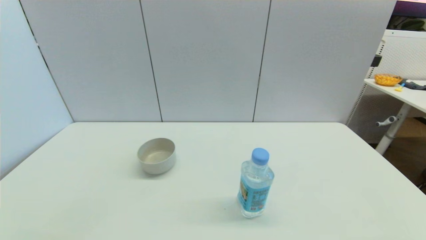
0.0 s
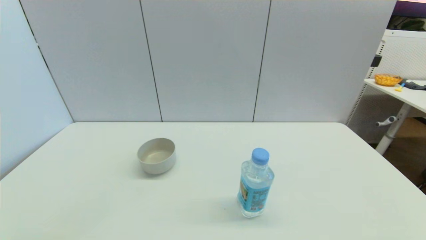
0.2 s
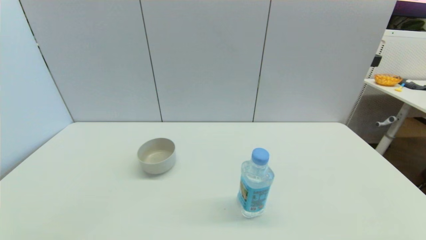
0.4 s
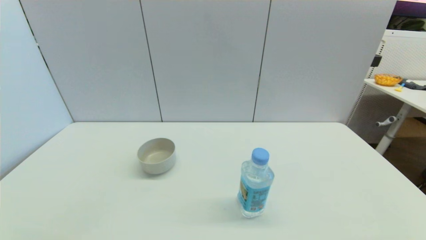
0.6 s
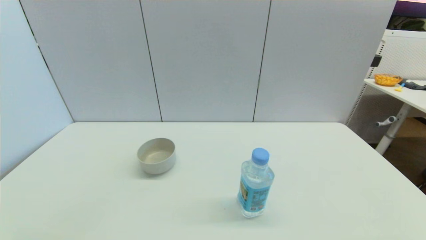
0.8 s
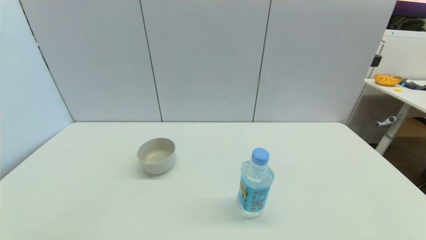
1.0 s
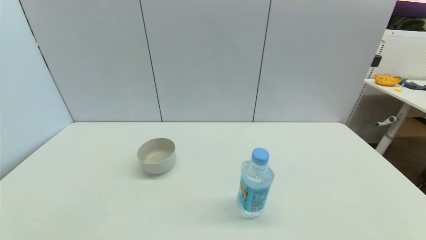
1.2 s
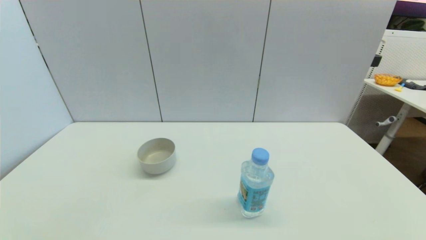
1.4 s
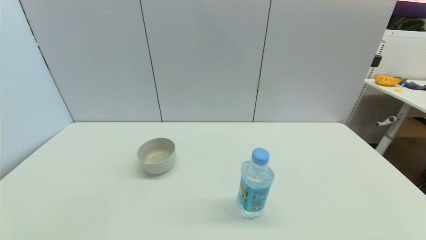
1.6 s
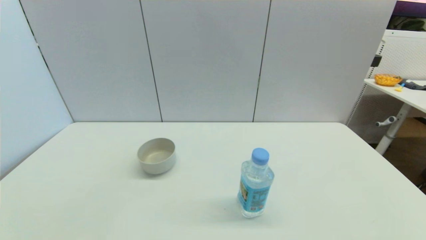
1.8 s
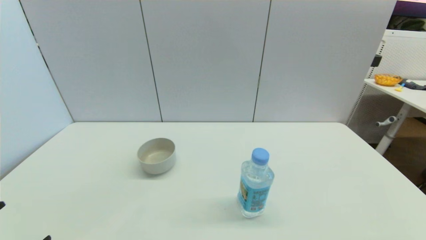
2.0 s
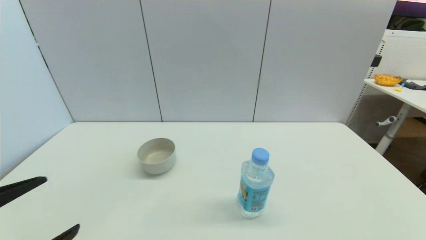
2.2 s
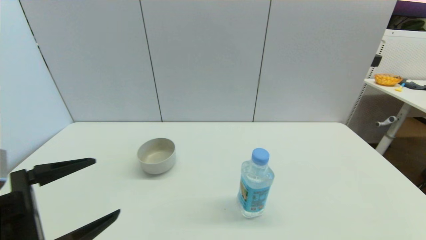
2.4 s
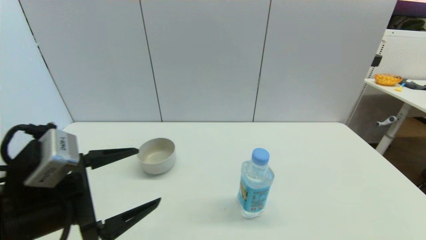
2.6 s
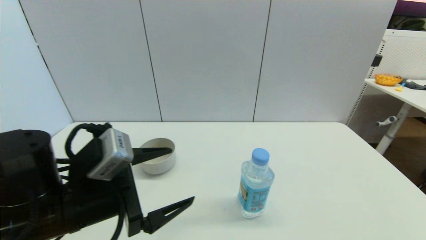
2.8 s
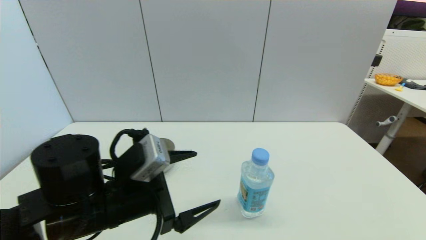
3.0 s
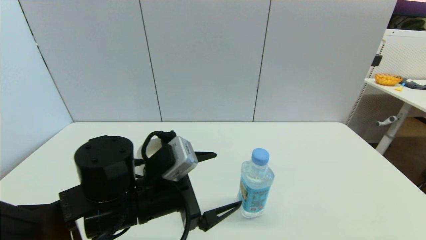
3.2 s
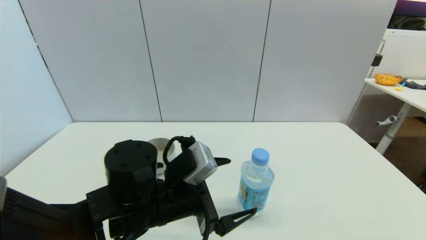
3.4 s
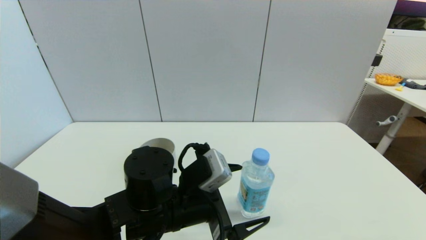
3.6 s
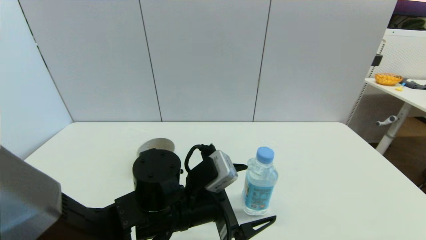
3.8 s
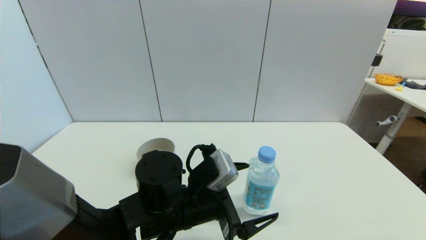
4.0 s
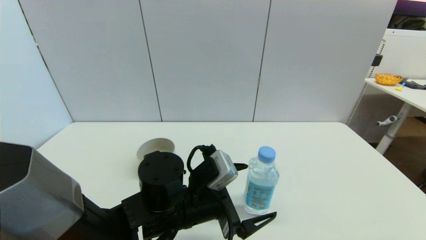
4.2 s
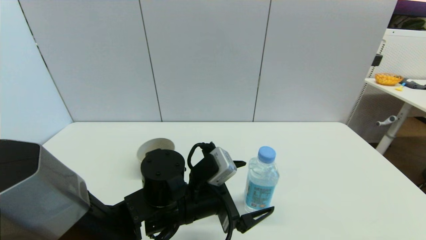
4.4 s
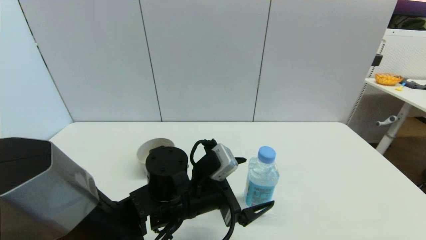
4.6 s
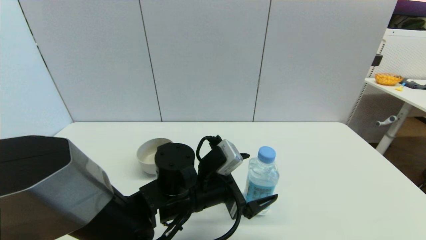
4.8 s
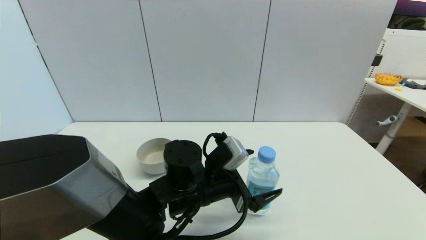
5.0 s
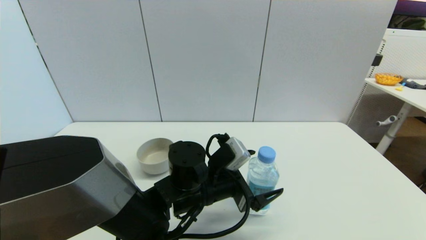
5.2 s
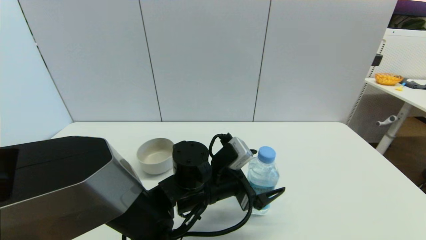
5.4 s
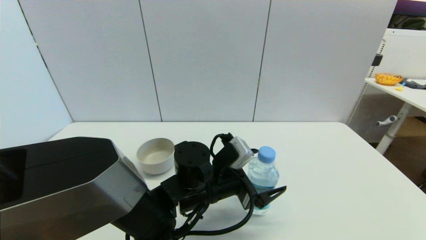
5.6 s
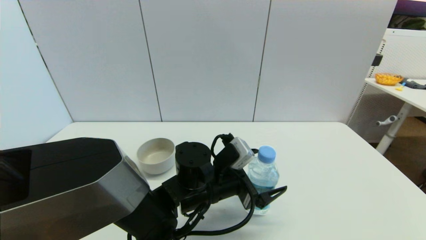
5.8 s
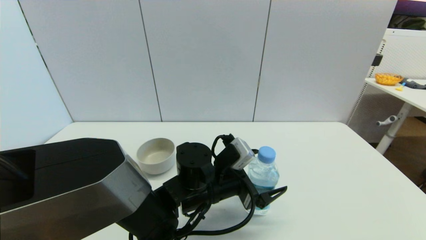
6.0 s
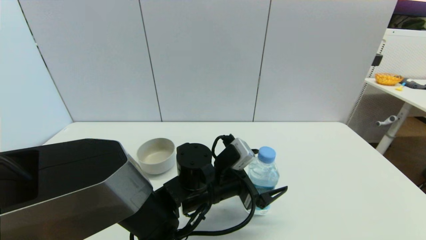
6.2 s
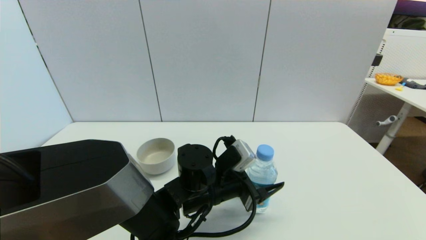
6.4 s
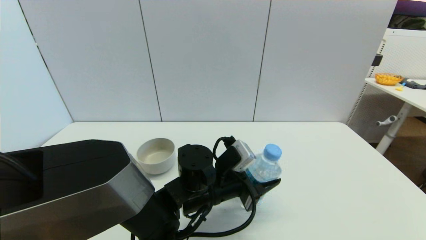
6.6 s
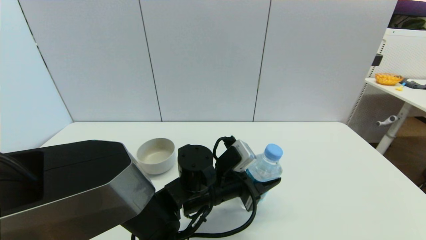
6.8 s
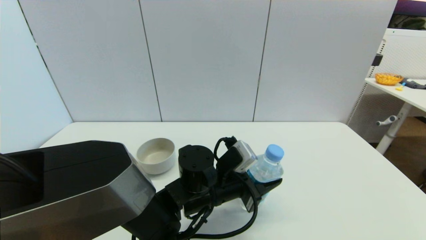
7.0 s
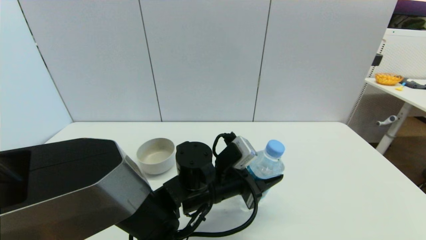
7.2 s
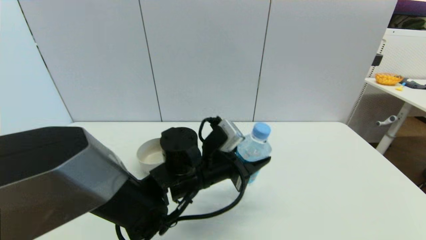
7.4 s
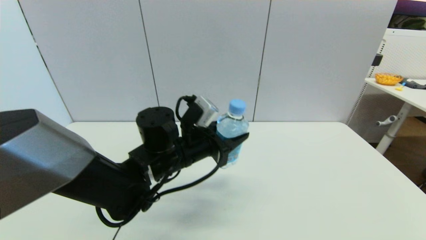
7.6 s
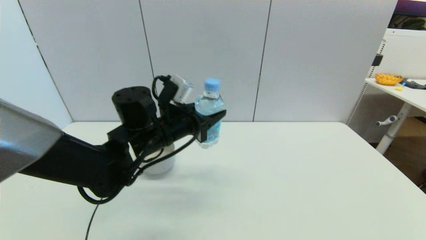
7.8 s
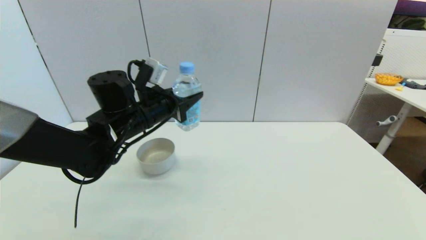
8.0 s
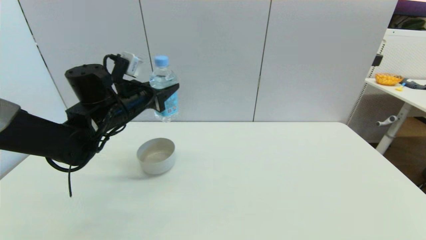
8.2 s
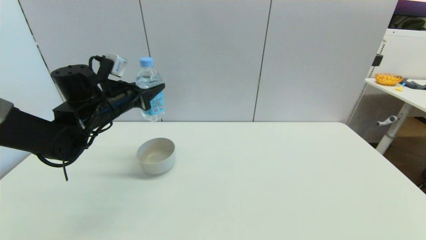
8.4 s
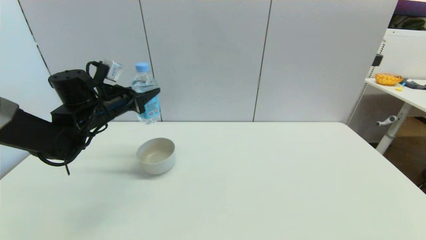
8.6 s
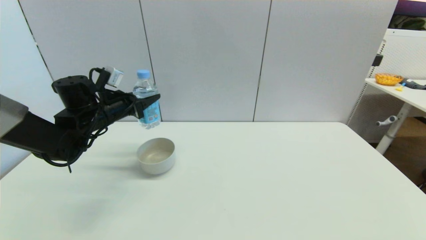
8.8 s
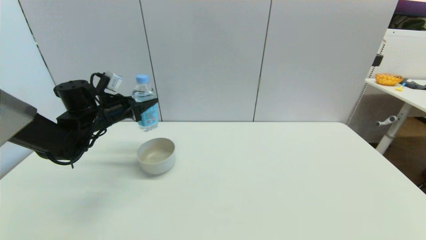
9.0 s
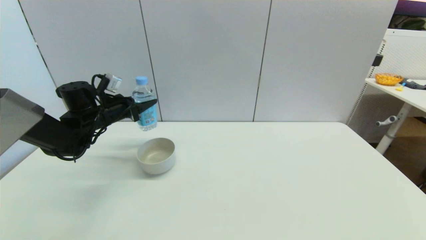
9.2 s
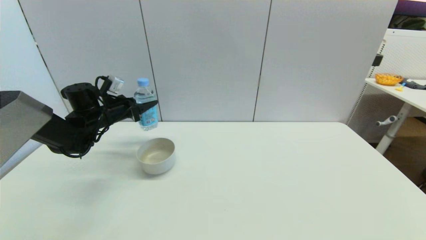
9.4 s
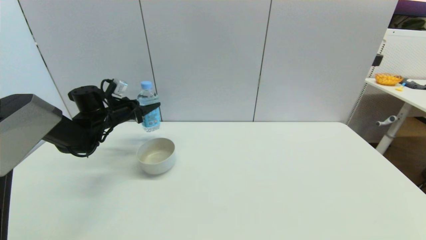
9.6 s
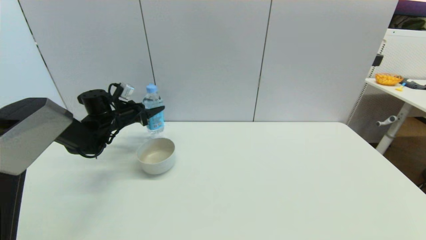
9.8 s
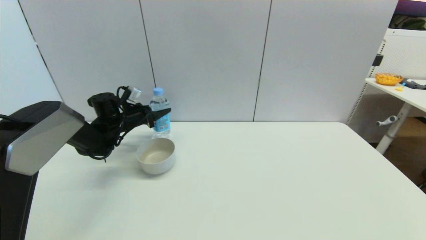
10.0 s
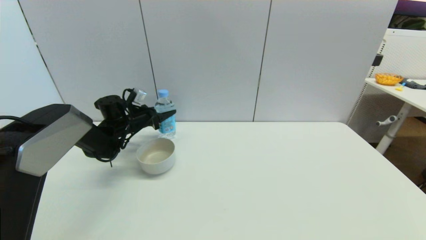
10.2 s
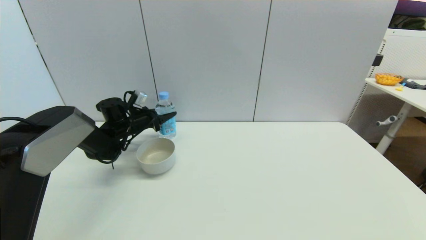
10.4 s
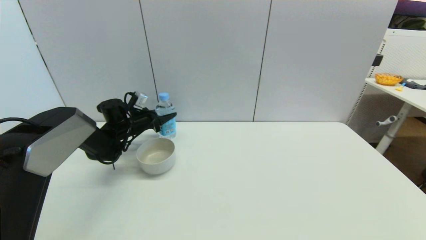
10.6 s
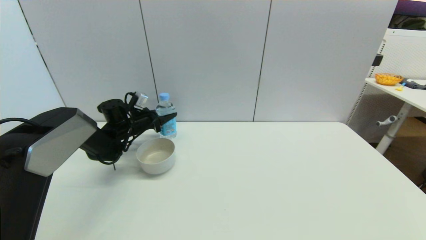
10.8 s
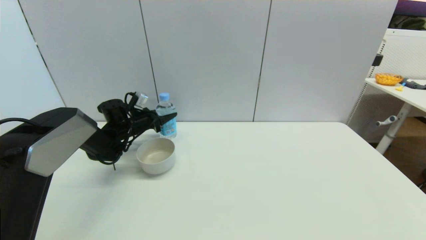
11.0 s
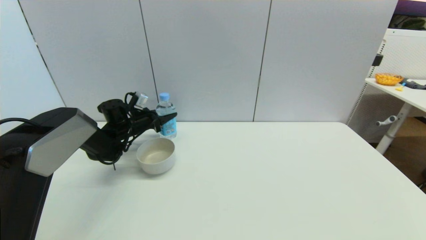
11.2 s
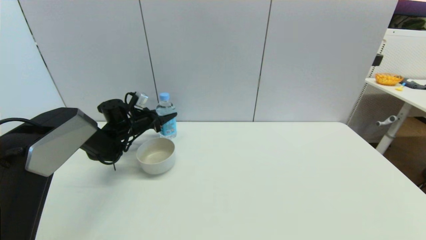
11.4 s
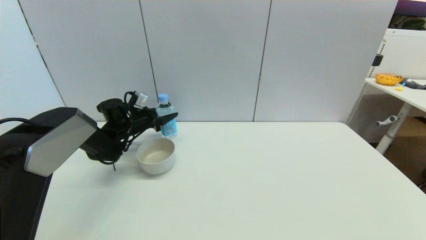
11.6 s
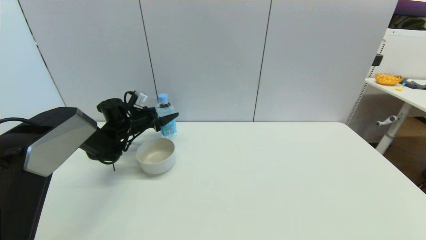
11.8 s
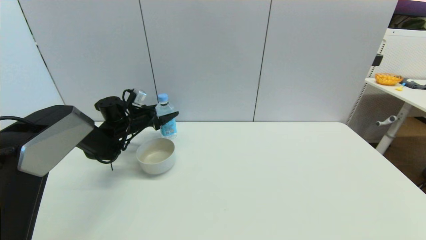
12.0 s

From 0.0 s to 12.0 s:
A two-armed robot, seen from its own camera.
Step, from 1.4 s to 6.8 s: Grasp the soda water with left gripper.
Step, from 7.2 s to 11.2 s: Place the soda water on the table with left gripper.
From 1.6 s to 3.0 s: The left gripper heads forward and to the right, covering some 25 cm.
From 3.0 s to 4.4 s: The left gripper moves to the right, about 10 cm.
From 4.4 s to 6.0 s: The left gripper moves approximately 5 cm.
From 6.0 s to 7.6 s: The left gripper travels upward and to the left by roughly 10 cm, and closes its fingers.
From 7.6 s to 9.0 s: The left gripper moves to the left and forward, about 25 cm.
From 9.0 s to 10.4 s: The left gripper heads downward and forward, covering some 10 cm.
From 10.4 s to 12.0 s: The left gripper opens.

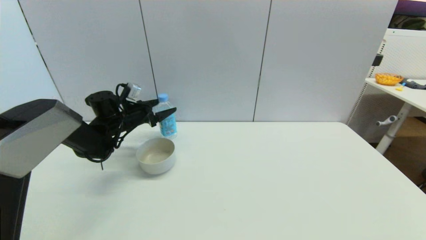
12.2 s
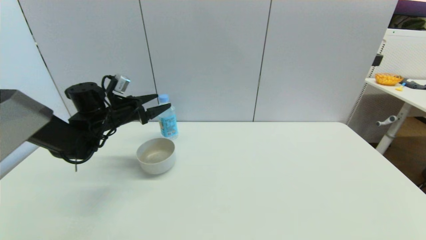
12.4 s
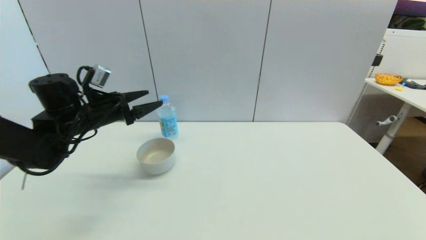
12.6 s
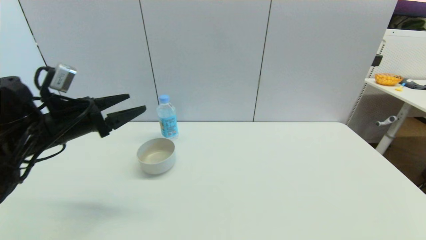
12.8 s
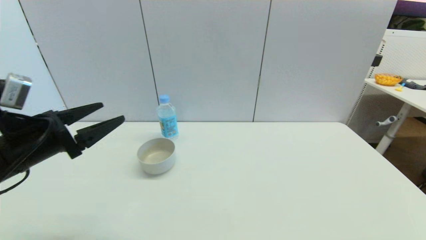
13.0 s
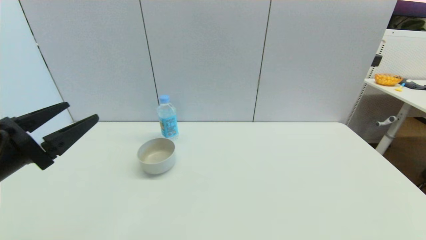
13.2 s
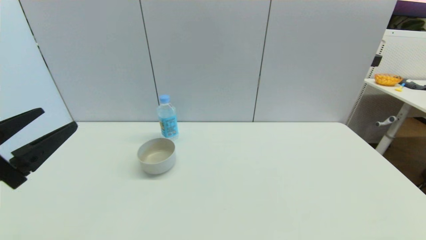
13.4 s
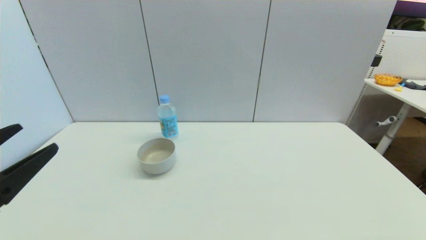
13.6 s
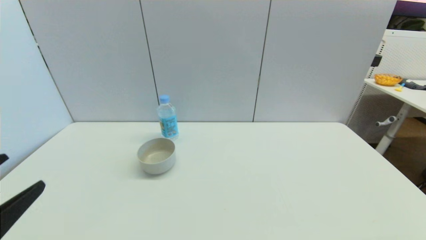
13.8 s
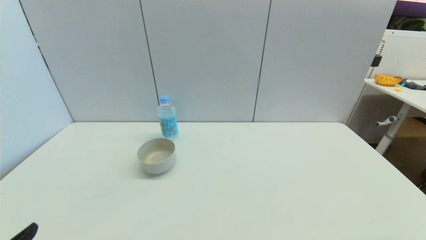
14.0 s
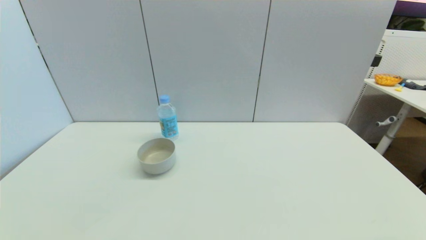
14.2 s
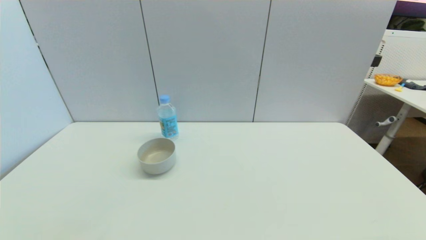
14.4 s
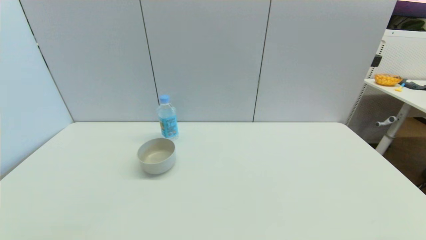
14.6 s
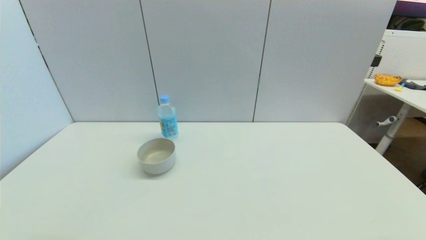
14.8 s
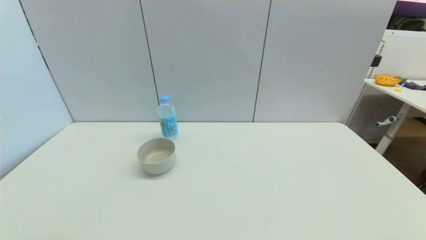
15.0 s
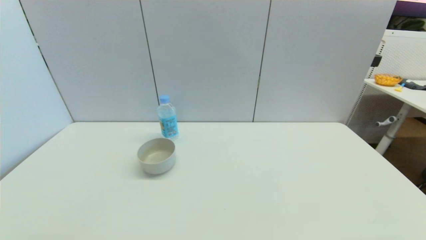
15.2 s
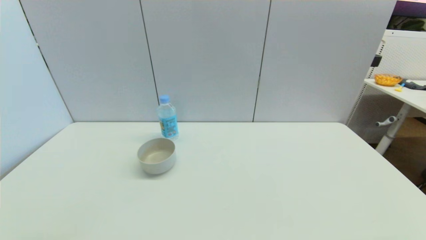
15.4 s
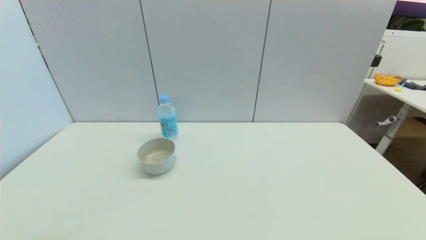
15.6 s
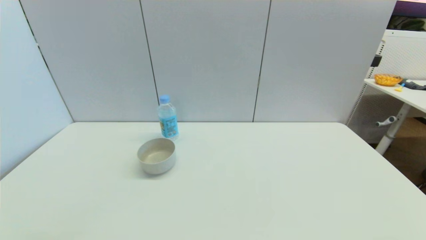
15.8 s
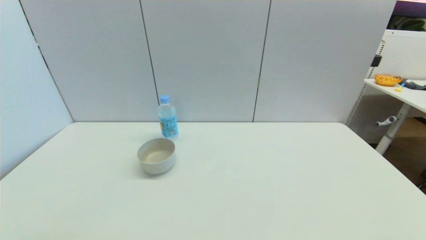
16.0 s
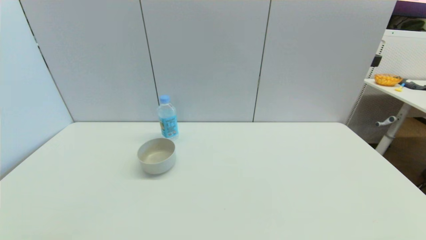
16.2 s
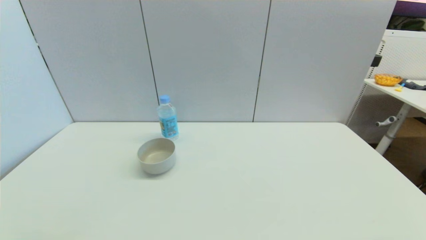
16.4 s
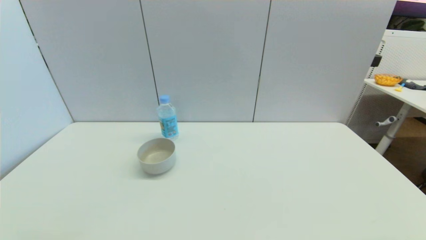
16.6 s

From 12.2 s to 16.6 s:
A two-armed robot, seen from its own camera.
From 12.2 s to 13.6 s: The left gripper shifts some 35 cm backward.
From 13.6 s to 15.2 s: The left gripper shifts some 15 cm downward and backward.
From 15.2 s to 16.6 s: Both grippers stay put.
